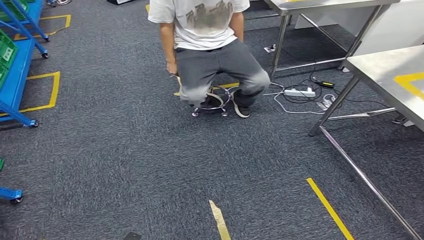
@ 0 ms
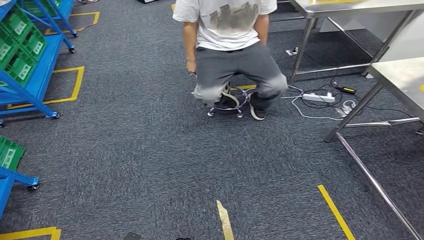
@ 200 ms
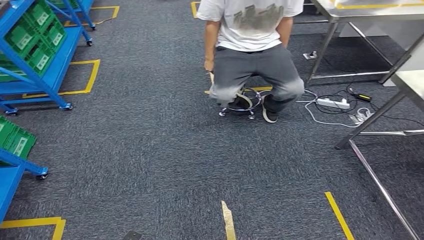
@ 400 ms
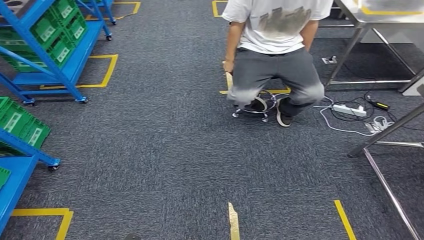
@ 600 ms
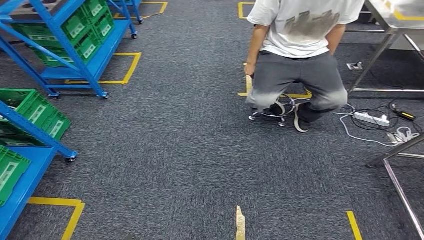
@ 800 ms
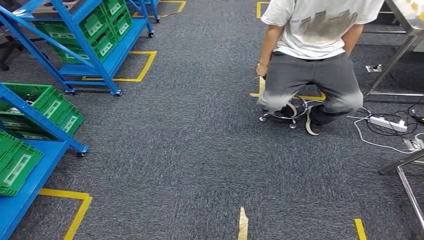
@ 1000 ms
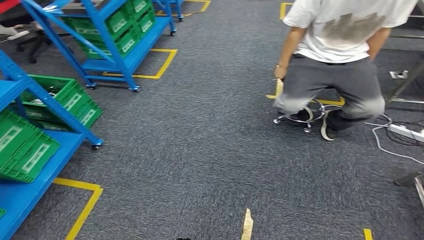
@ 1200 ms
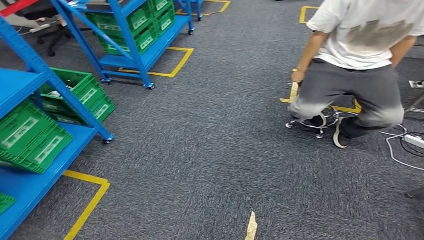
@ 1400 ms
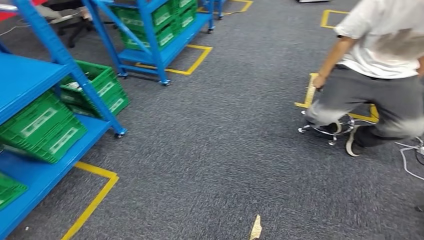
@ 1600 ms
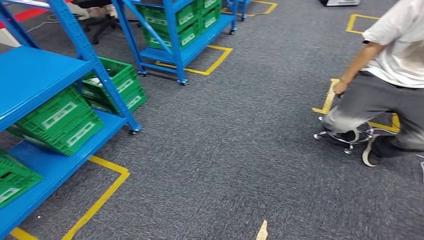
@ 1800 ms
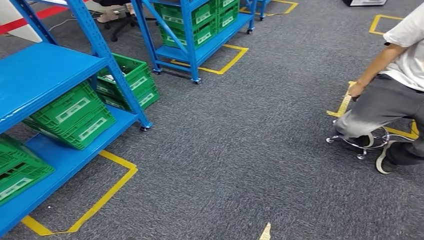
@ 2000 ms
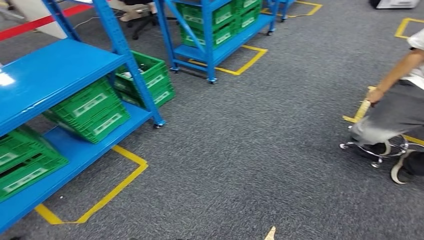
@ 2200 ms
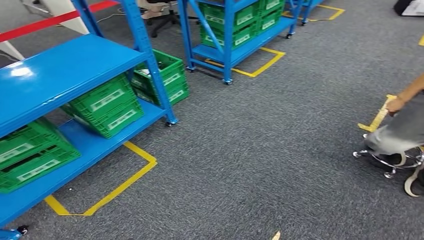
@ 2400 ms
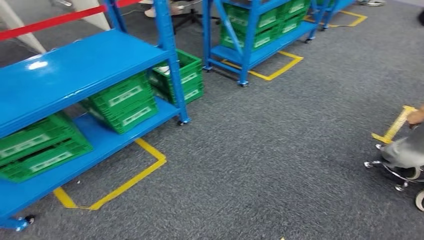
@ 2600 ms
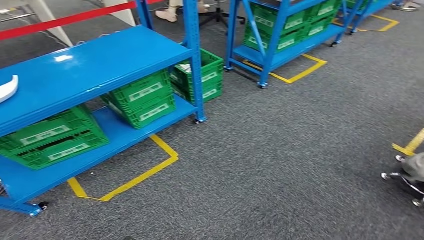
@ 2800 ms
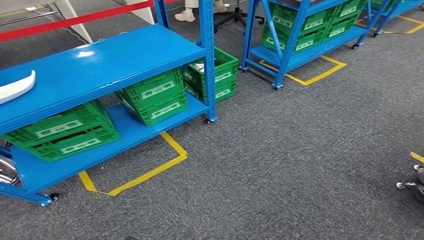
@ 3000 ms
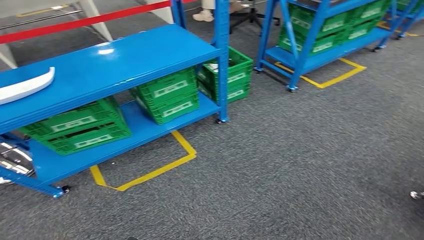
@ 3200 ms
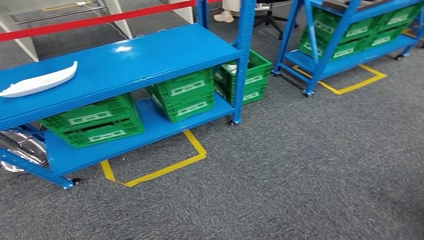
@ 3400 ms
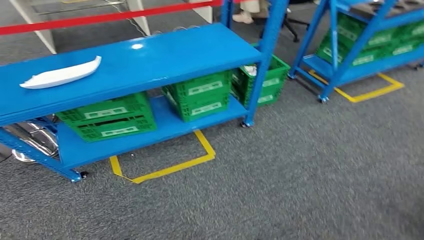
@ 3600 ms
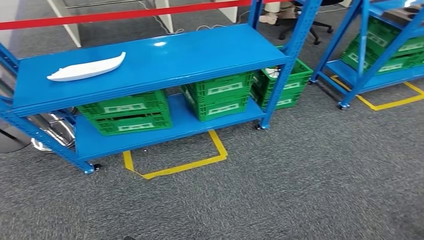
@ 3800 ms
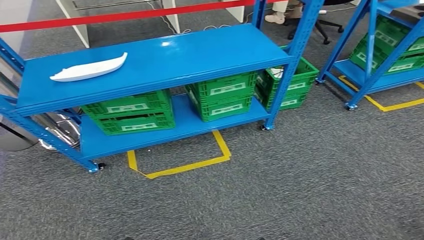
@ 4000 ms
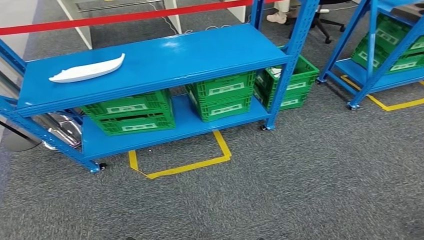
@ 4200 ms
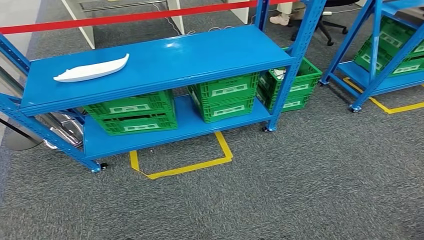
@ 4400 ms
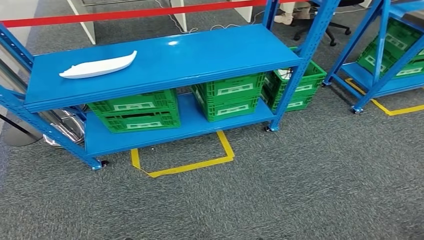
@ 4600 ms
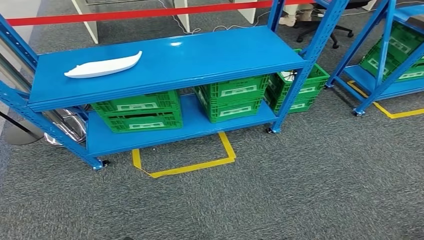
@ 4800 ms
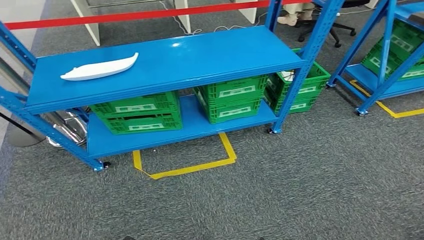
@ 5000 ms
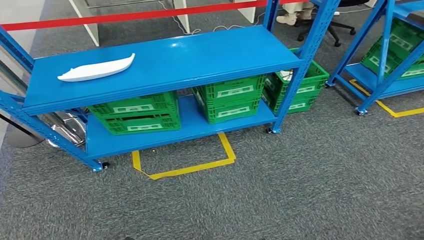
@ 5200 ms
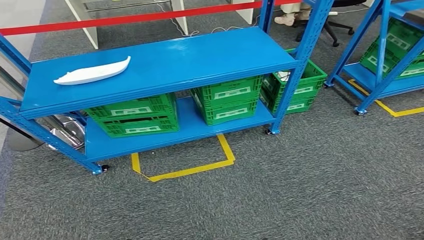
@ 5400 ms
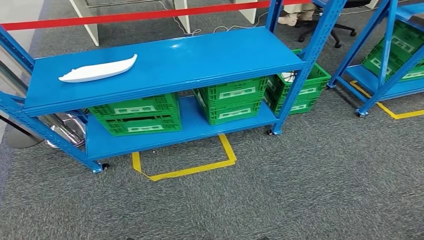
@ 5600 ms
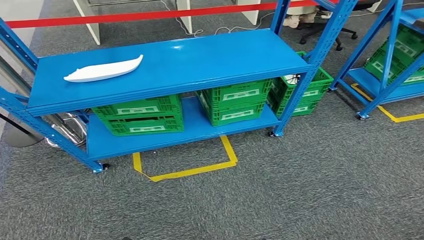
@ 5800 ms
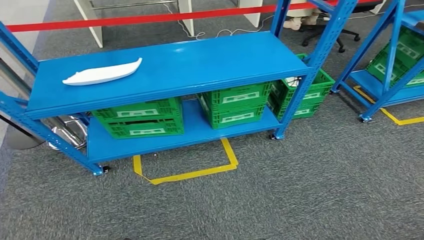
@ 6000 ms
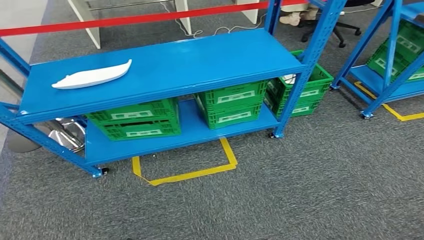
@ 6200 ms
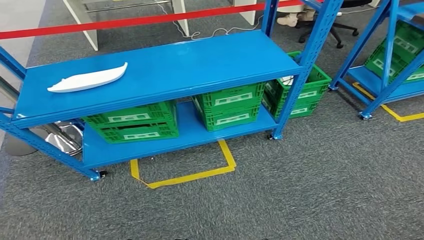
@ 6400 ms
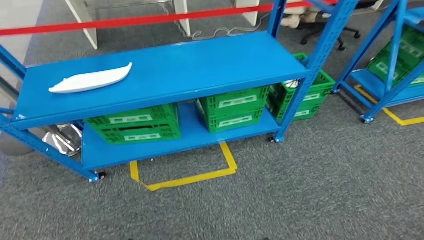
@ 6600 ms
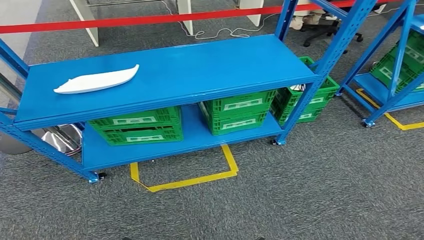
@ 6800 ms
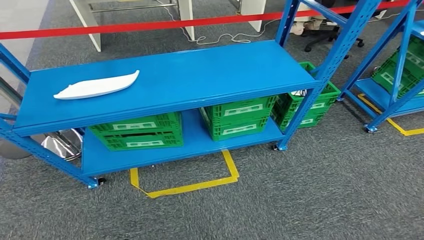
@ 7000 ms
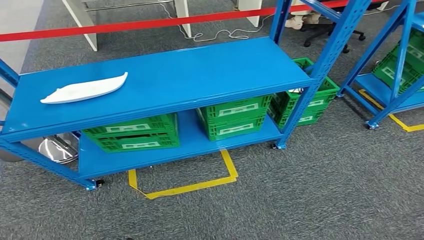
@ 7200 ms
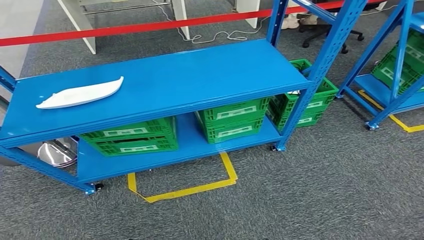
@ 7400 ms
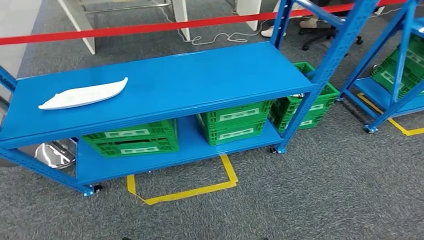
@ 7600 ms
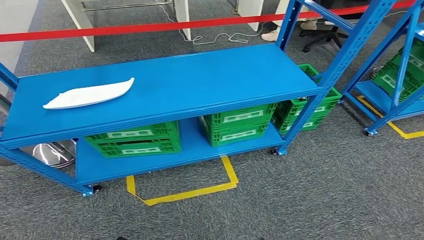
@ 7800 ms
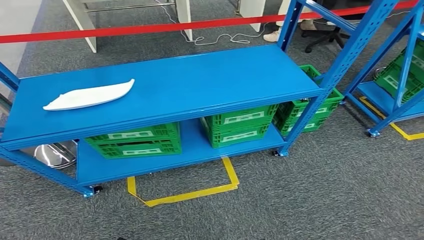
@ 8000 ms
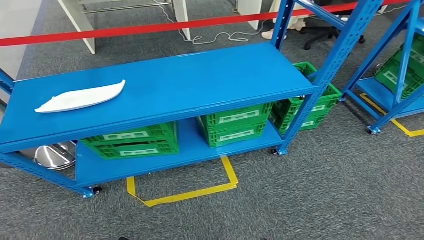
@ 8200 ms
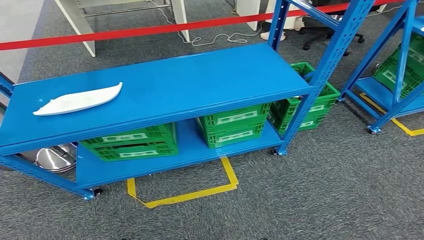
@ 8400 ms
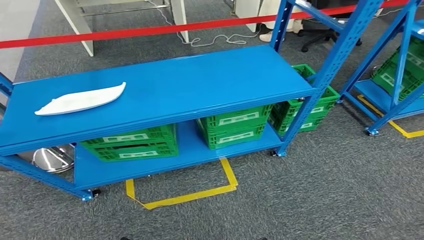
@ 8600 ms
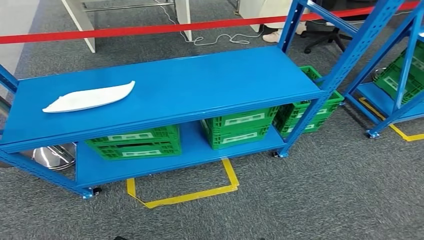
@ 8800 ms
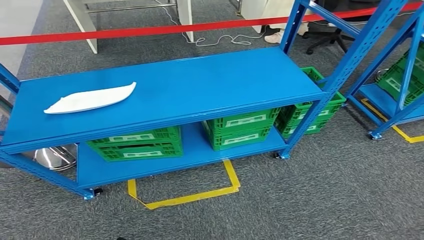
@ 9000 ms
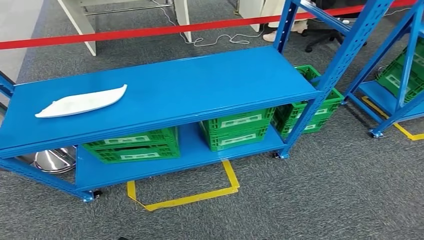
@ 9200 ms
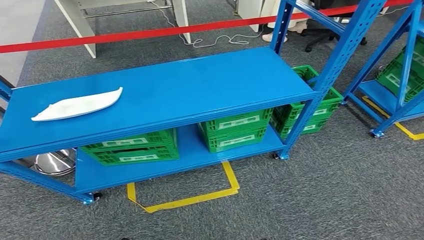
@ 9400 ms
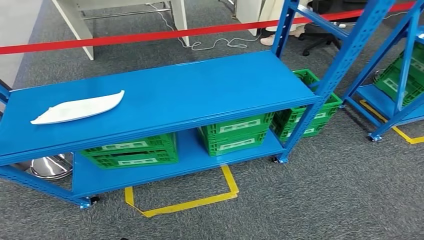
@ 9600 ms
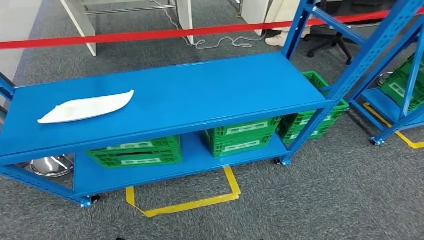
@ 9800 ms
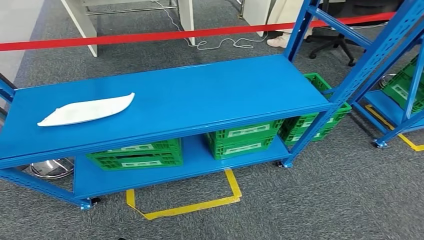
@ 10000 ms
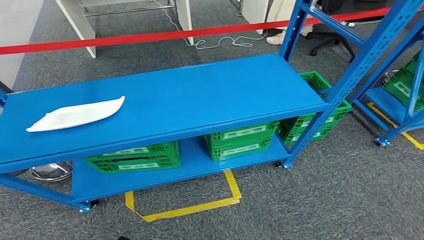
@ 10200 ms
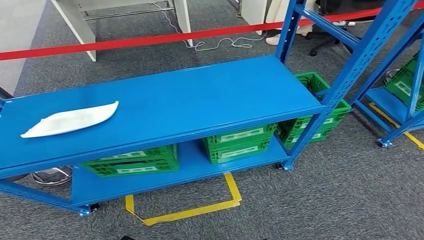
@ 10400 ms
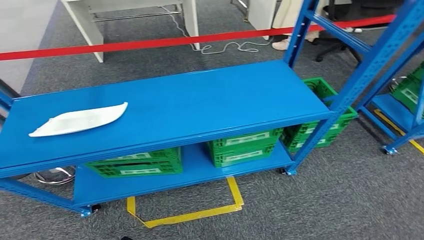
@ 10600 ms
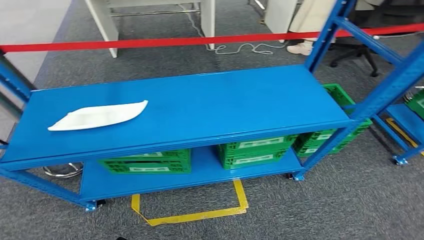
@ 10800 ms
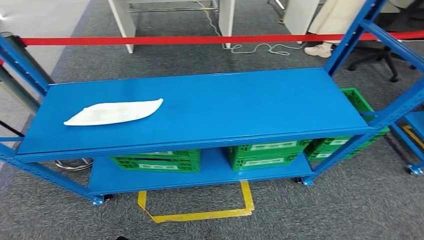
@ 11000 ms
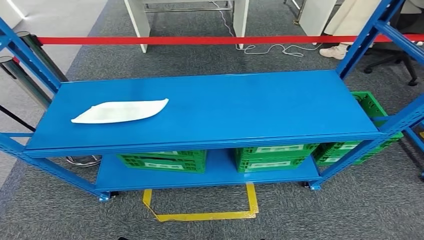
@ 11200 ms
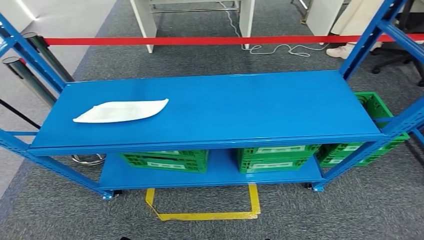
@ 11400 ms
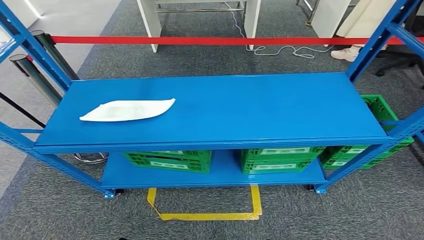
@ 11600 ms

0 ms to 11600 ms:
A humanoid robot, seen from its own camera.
Step, 0 ms to 11600 ms: Move to the initial position of the workbench.
